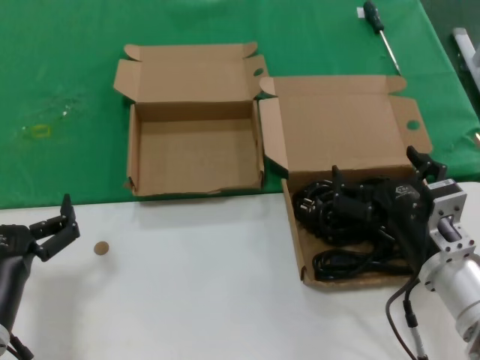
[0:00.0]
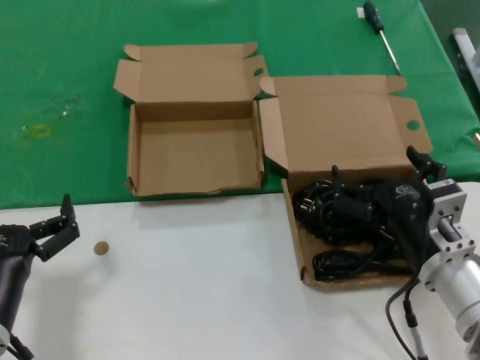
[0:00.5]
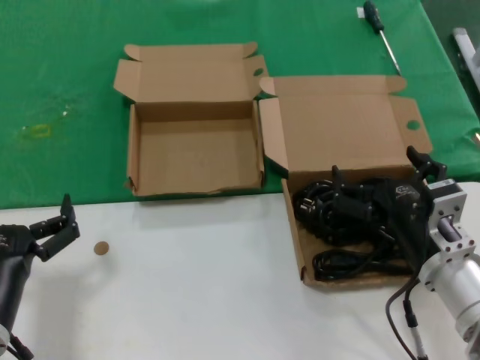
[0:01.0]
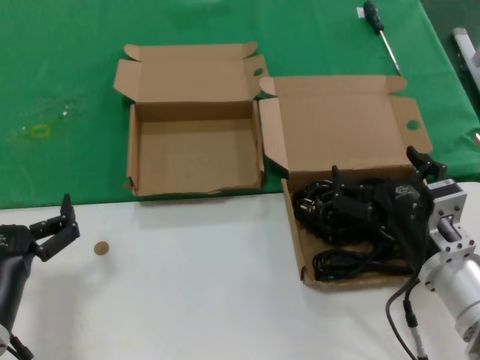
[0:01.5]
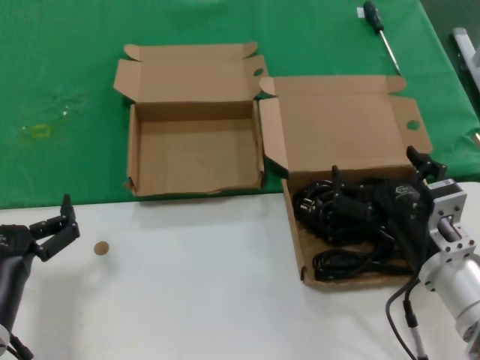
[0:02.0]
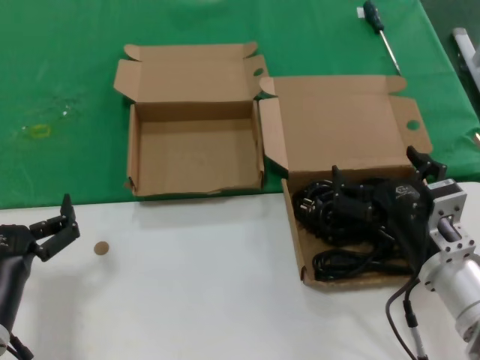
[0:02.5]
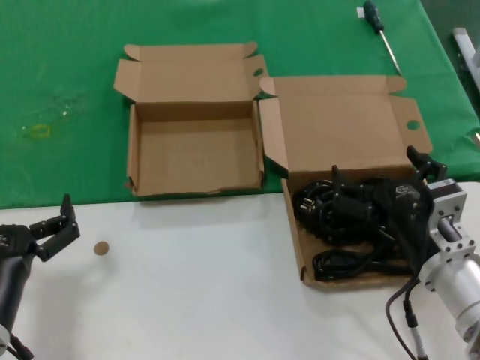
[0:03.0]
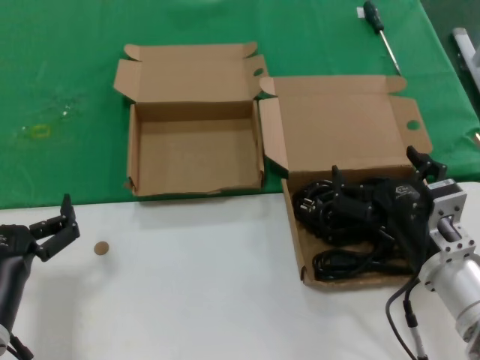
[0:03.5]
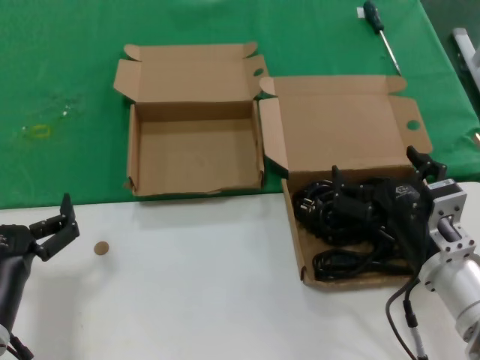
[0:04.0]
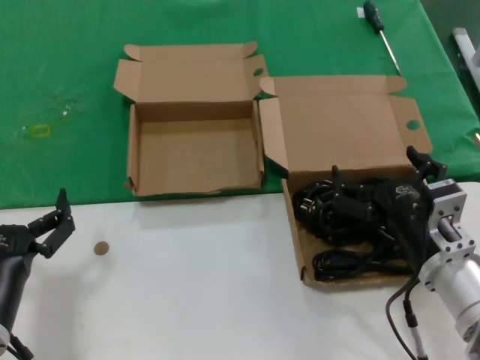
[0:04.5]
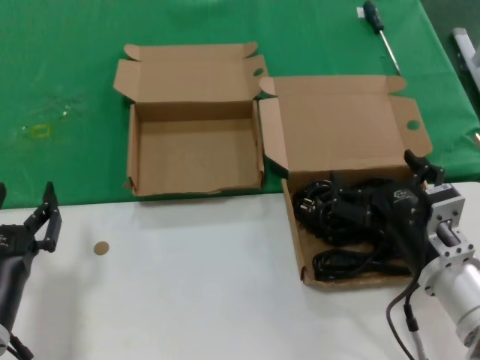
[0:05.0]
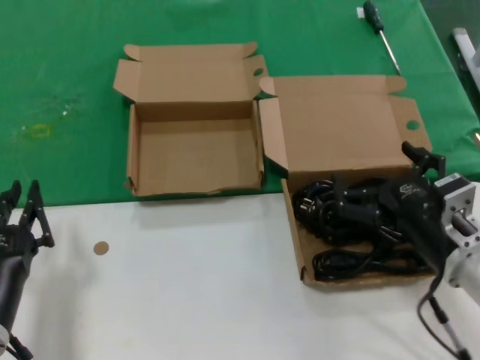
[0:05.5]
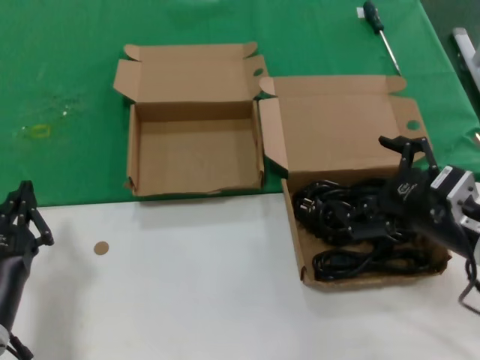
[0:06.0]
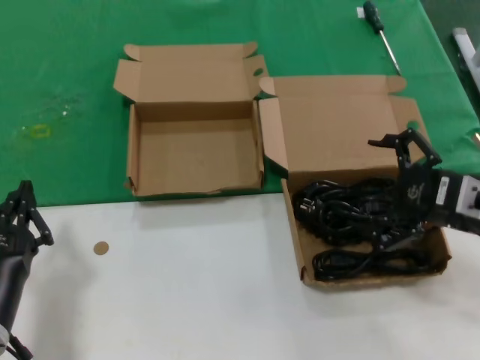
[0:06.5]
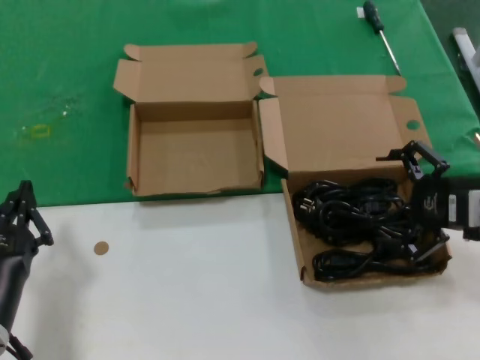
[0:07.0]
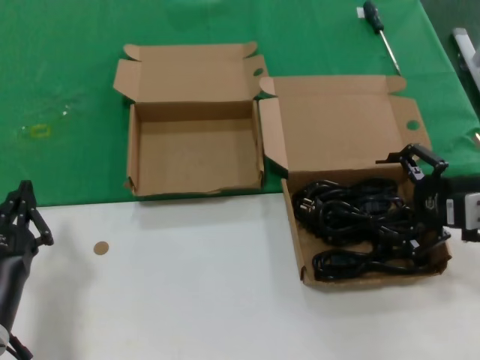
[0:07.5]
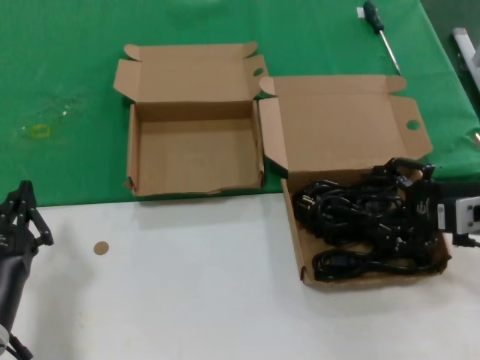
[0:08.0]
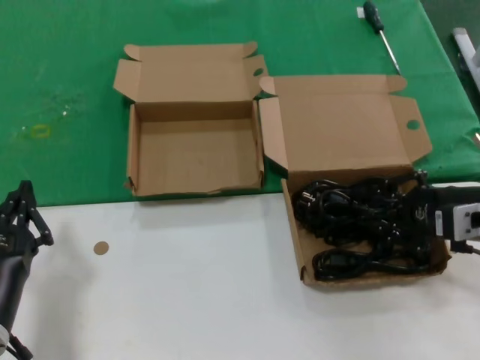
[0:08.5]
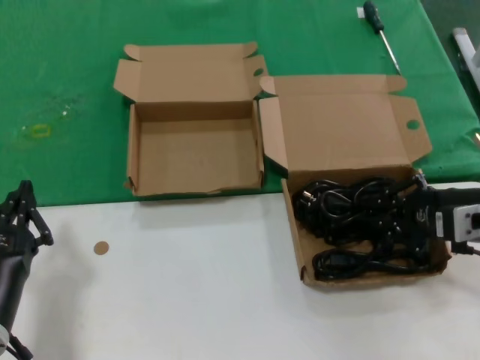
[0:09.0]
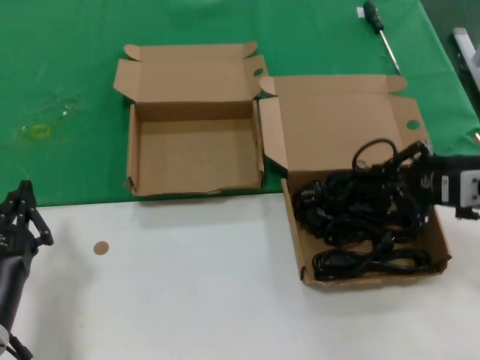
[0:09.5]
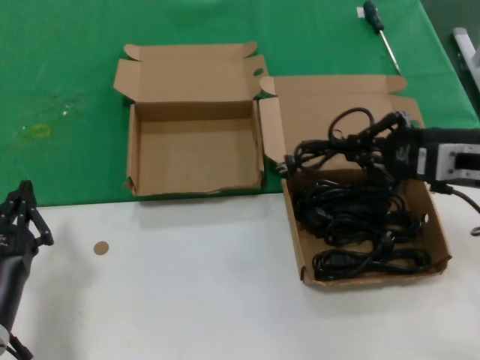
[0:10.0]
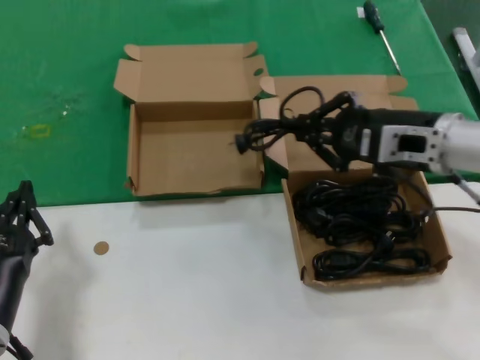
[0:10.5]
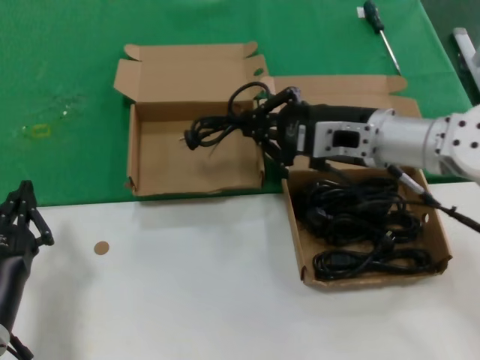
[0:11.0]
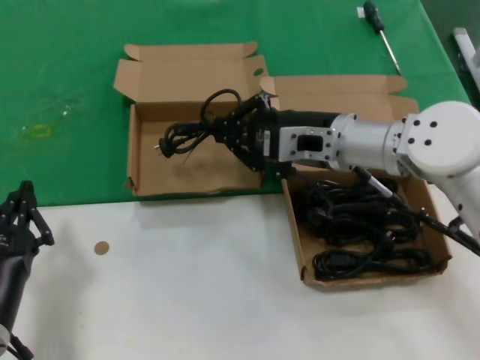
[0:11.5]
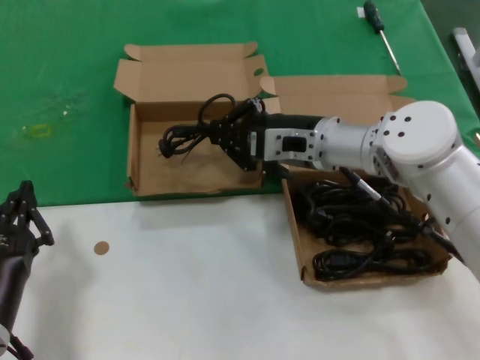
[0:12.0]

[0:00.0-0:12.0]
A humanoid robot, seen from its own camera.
Task of the whole recording: take the parts from the box containing them and put them into an empty box.
Step, 0:00.0 to 0:08.5: Grasp the data cable.
0:00.0 to 0:04.0: Both hands stay put.
0:04.0 to 0:06.0: The right hand goes roughly 10 cm to the right and upward.
0:06.0 to 0:08.0: The right hand moves to the right and forward, some 10 cm.
0:08.0 to 0:10.0: The right hand ends up approximately 5 cm from where it was.
0:10.0 to 0:12.0: The right hand shifts about 20 cm to the left and forward.

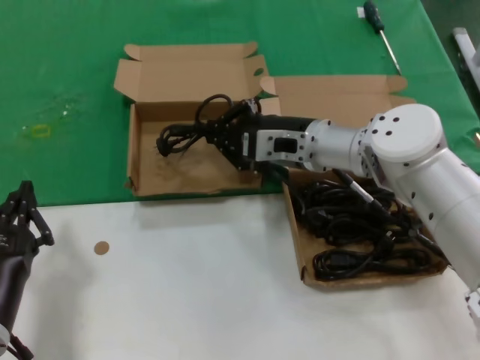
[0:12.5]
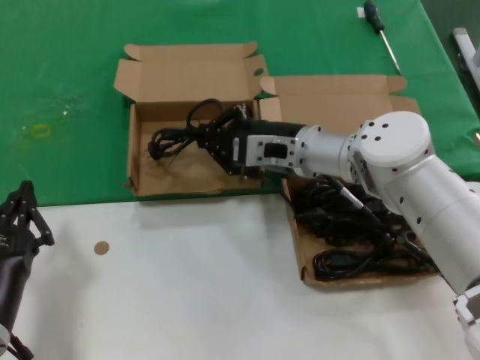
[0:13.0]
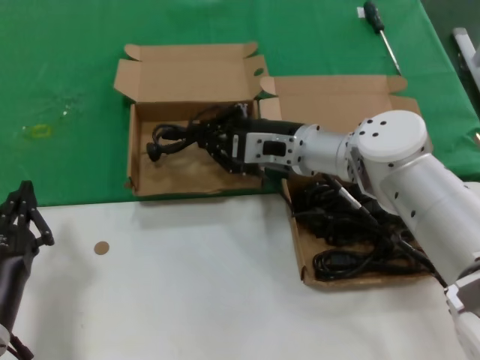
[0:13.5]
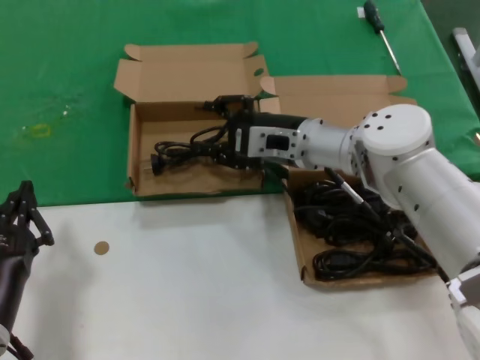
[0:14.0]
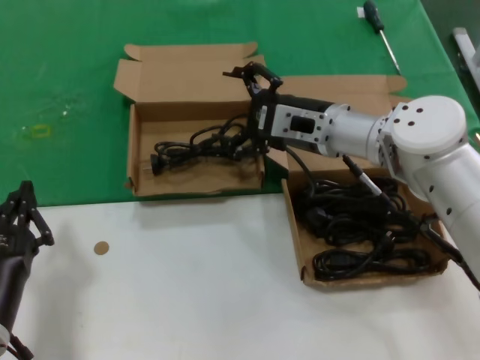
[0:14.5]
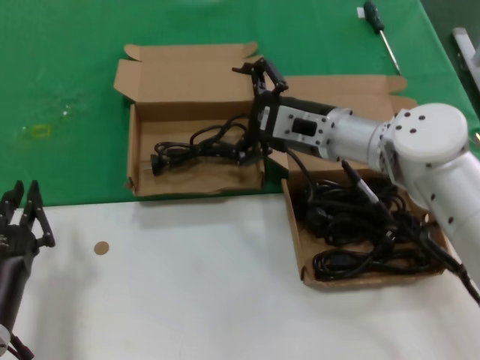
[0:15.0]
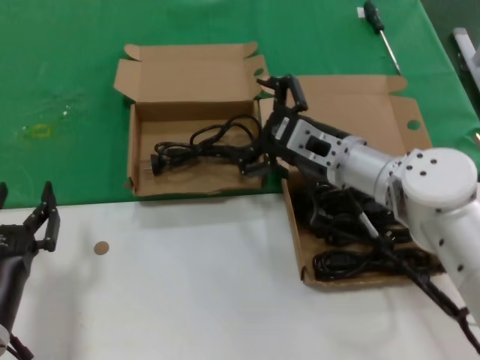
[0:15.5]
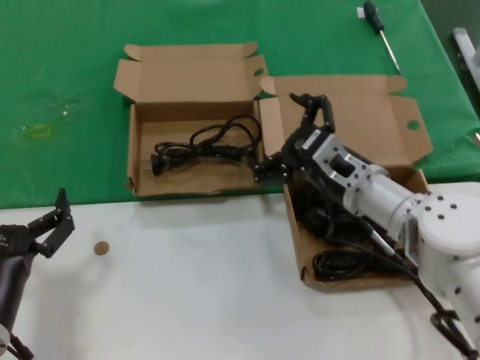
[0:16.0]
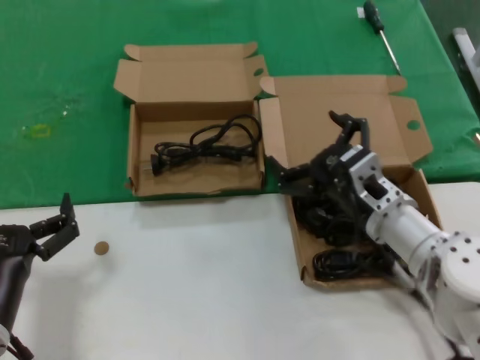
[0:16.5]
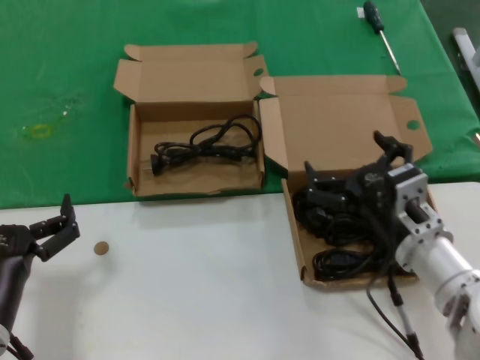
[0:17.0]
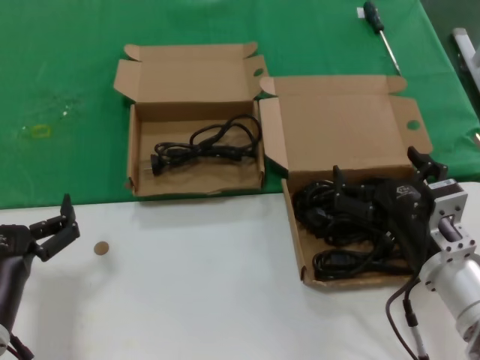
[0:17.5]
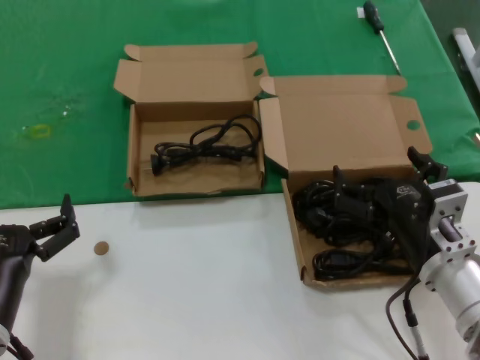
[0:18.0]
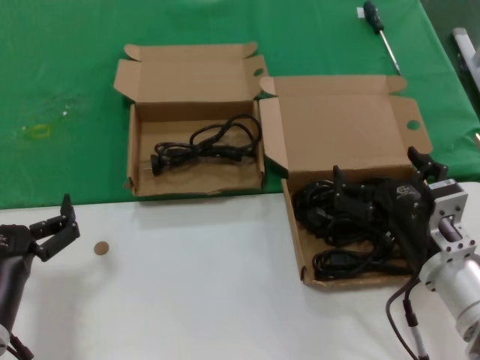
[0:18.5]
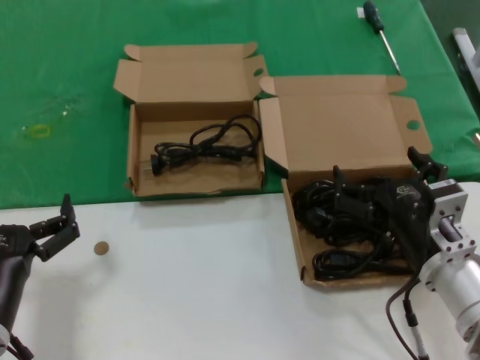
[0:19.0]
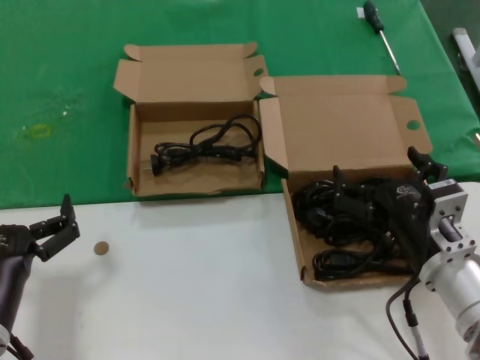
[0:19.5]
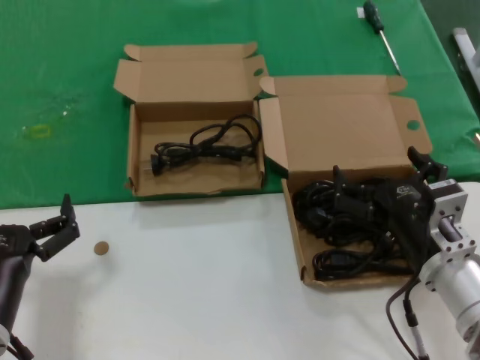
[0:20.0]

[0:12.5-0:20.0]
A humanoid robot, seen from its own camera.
Task of the whole recording: take the parts from the box containing them and put them into an empty box.
0:12.5 to 0:14.5: The hands move only a little.
0:14.5 to 0:16.5: The right hand is displaced backward and downward by some 15 cm.
0:16.5 to 0:18.0: The right hand heads backward, covering approximately 10 cm.
0:18.0 to 0:20.0: Neither hand changes place.

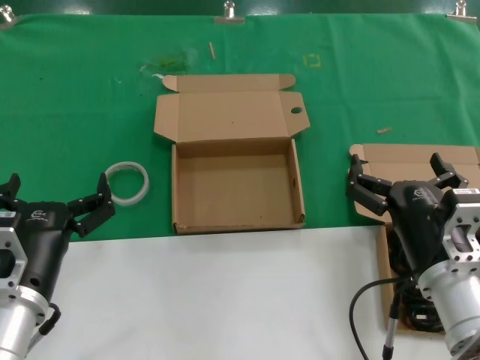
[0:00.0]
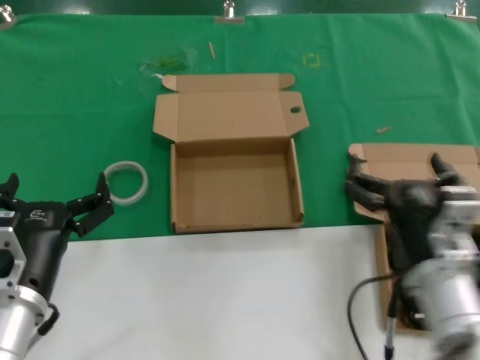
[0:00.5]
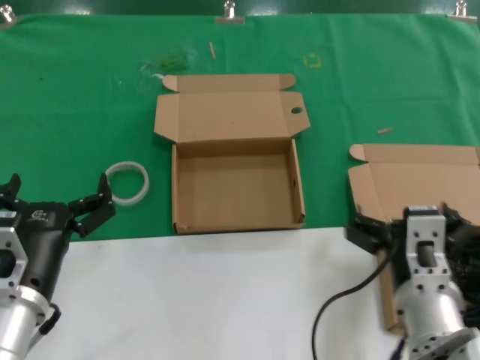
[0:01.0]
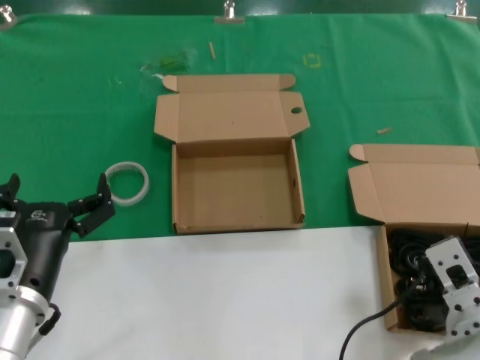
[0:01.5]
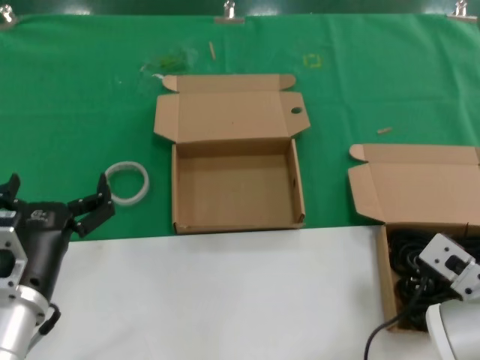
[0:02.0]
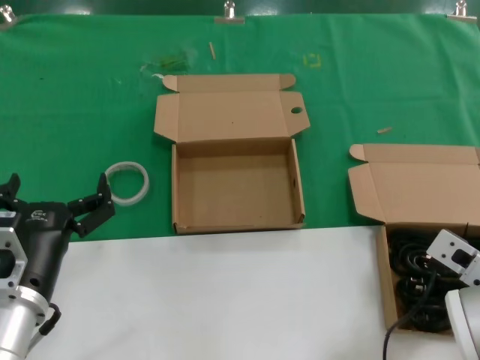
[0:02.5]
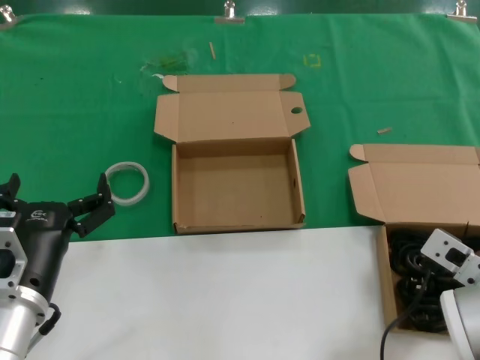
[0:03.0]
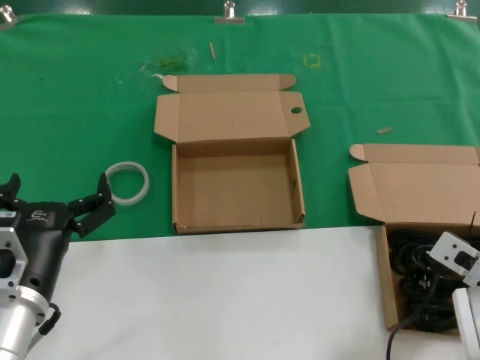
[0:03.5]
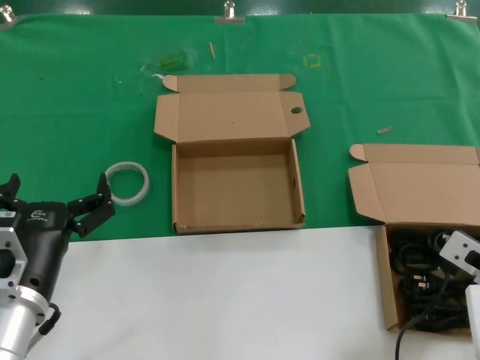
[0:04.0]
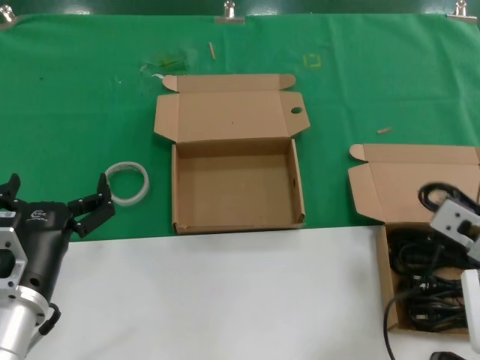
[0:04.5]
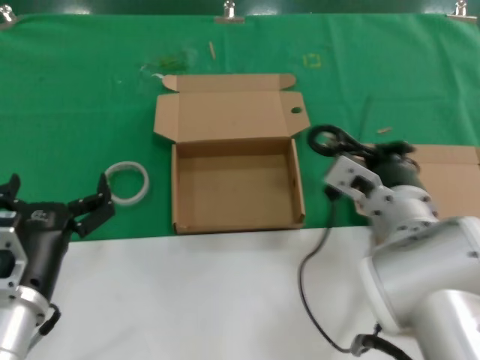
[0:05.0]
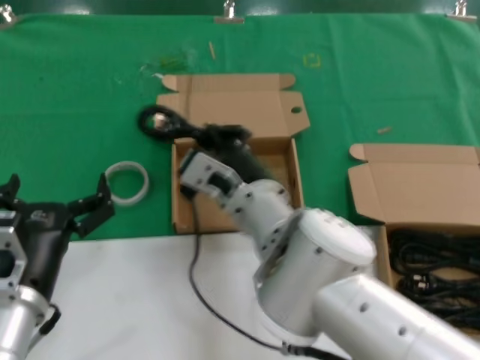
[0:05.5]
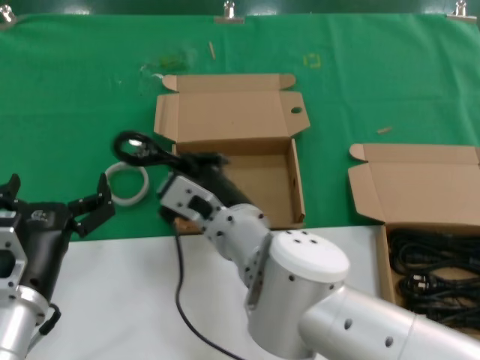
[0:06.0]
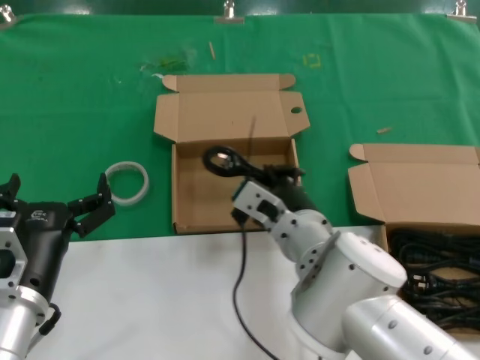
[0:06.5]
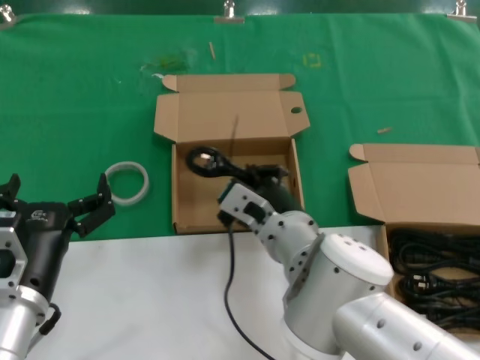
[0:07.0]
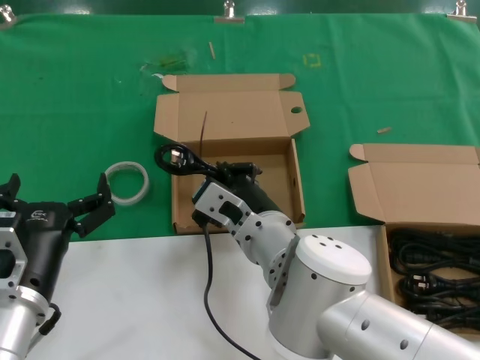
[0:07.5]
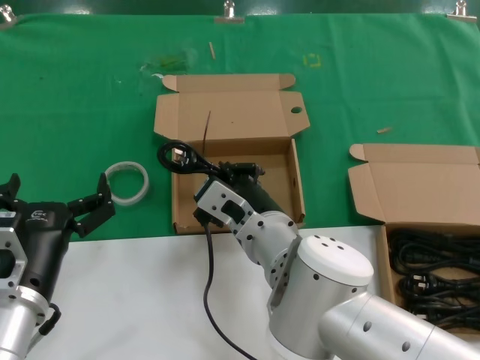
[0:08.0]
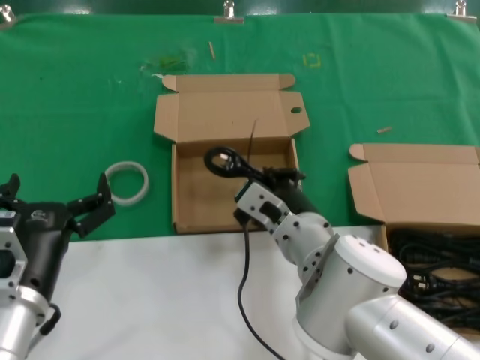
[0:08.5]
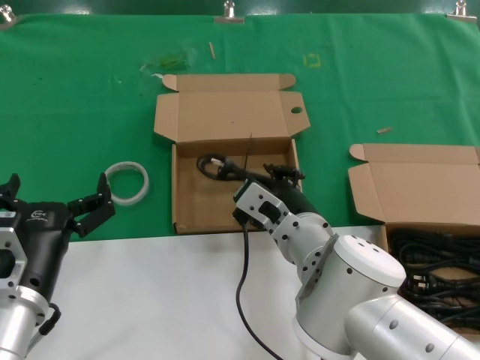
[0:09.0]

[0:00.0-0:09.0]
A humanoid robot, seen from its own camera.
Task of the whole recording: take the parts from the box containing them and put them into an empty box.
Step, 0:00.0 to 0:03.5: Grasp the data cable.
Step, 0:04.0 to 0:09.0: Place the data cable in the another box.
0:02.0 to 0:04.5: The hands move only a little.
0:04.5 to 0:07.0: The right hand heads to the left, covering roughly 20 cm.
0:07.0 to 0:09.0: The hands move only a little.
